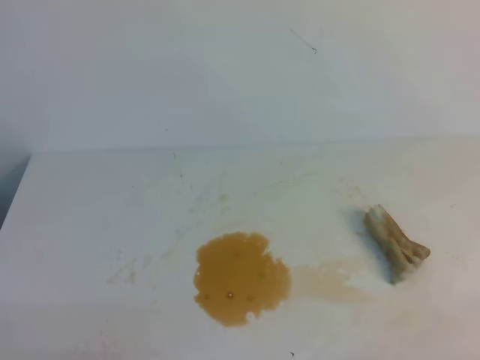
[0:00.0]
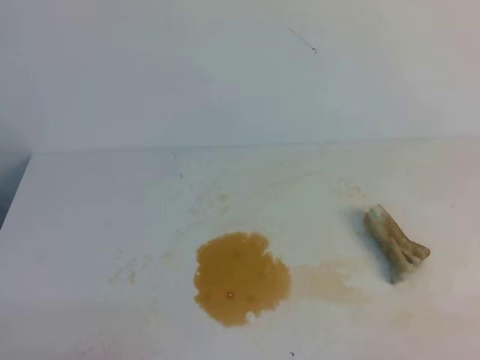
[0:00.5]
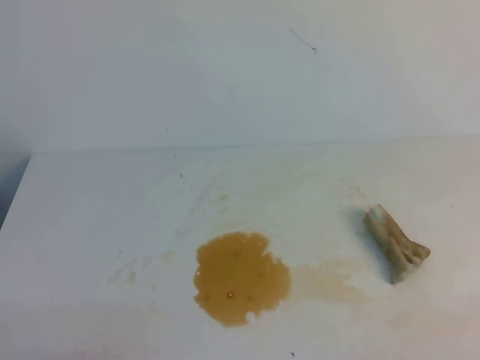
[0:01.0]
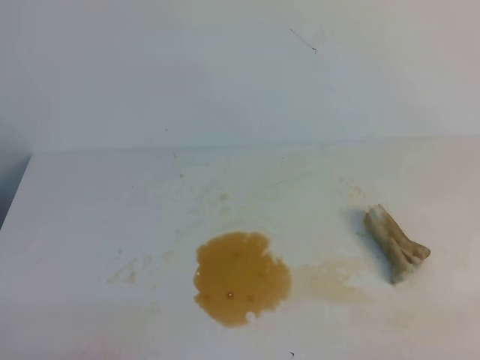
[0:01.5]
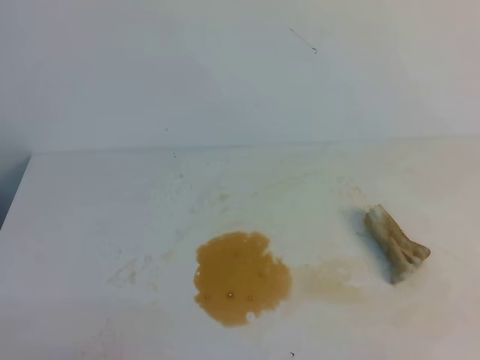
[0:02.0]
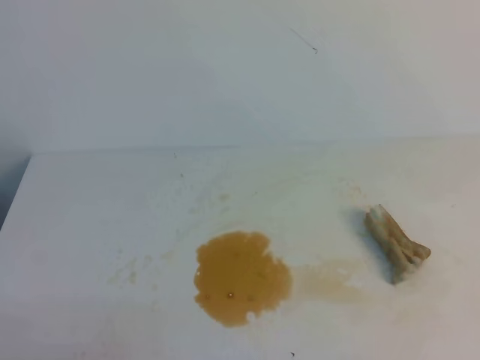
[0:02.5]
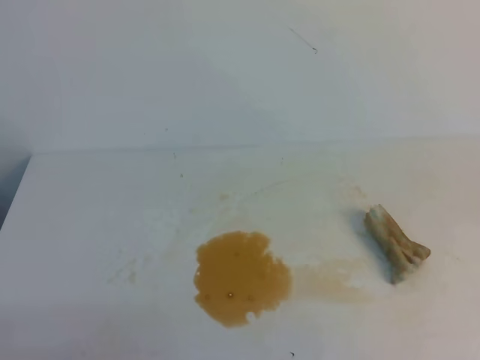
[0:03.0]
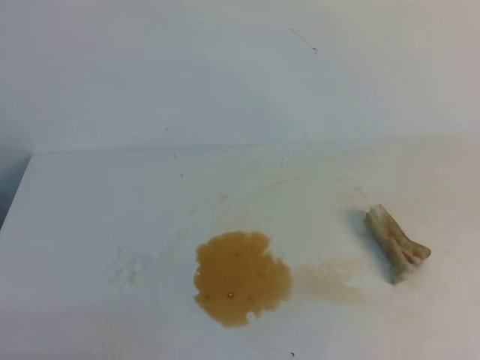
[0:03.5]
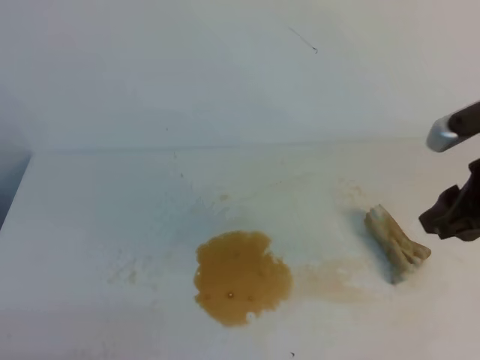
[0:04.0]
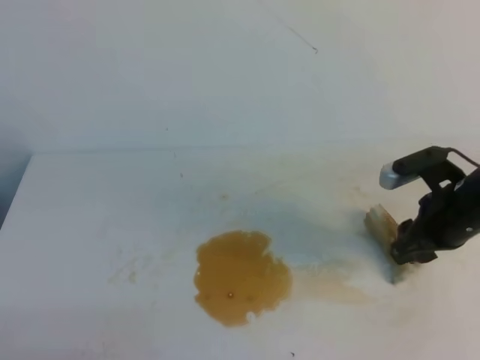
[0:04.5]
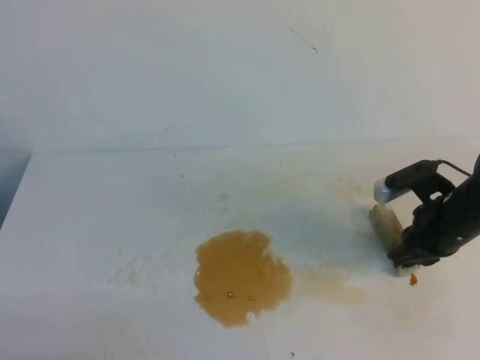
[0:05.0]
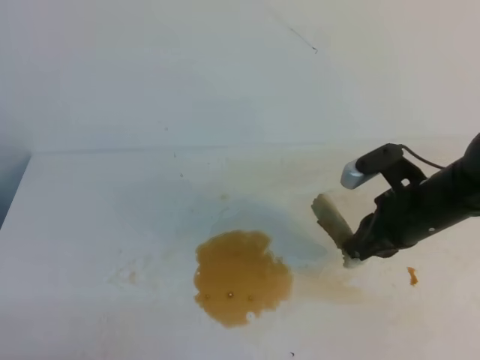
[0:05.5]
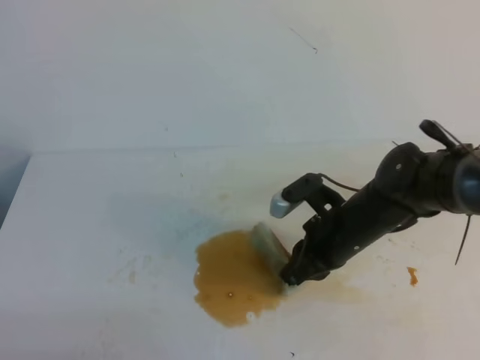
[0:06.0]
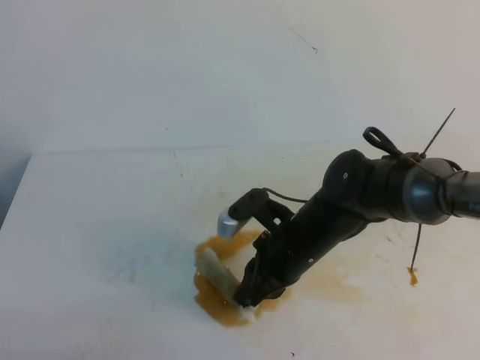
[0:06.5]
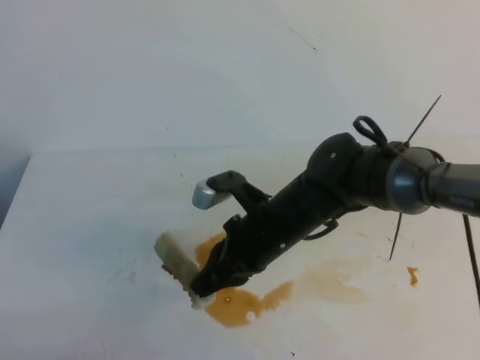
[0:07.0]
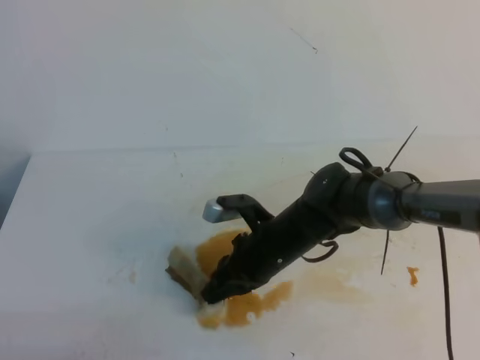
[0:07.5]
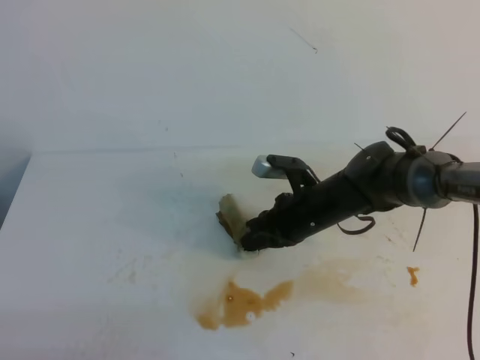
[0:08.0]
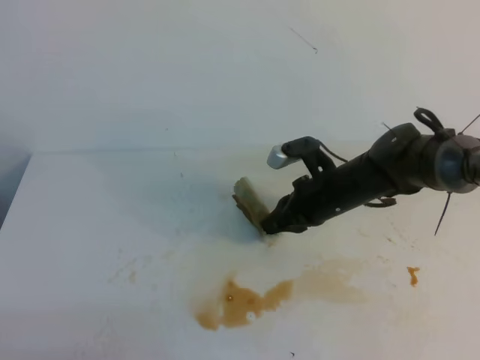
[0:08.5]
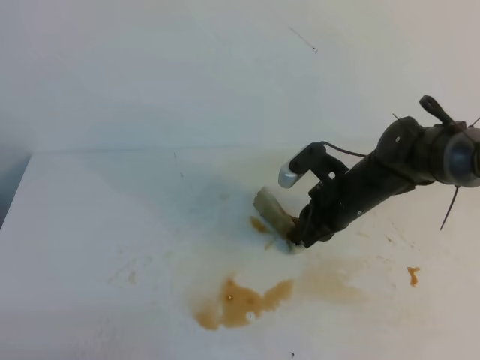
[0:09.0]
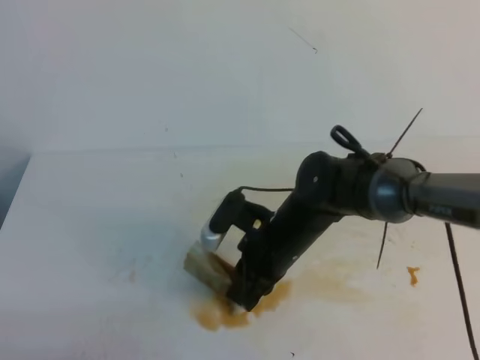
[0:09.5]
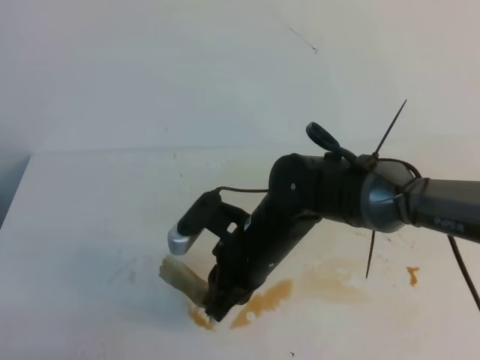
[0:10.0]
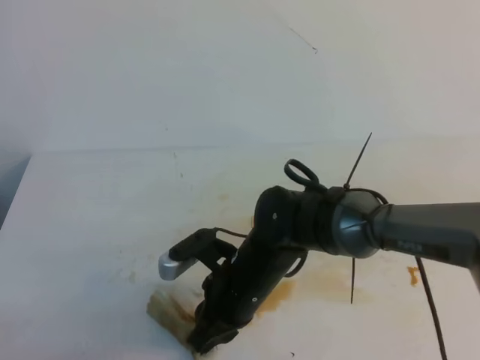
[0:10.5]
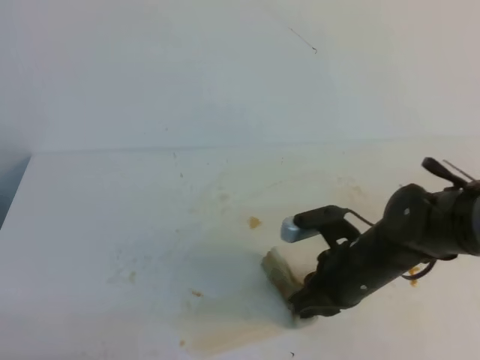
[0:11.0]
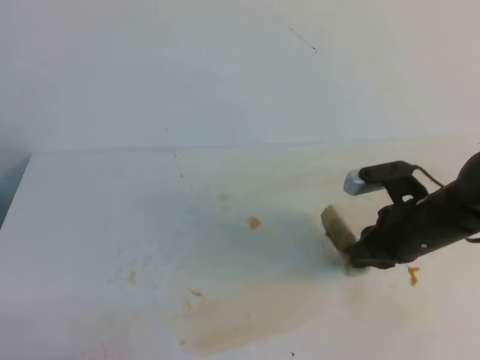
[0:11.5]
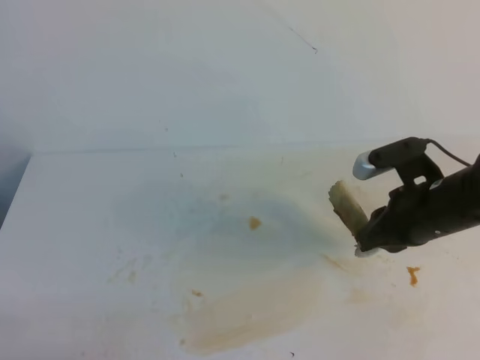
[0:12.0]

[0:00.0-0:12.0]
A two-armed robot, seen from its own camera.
0:02.0 to 0:04.0: The right gripper moves forward, some 20 cm, and opens up.
0:04.0 to 0:06.0: The right gripper goes approximately 20 cm to the left, downward and forward, and closes its fingers.
0:06.0 to 0:08.0: The right gripper ends up about 5 cm from where it was.
0:08.0 to 0:10.0: The right gripper is displaced backward, to the left and upward by roughly 15 cm.
0:10.0 to 0:12.0: The right gripper heads to the right, covering some 20 cm.

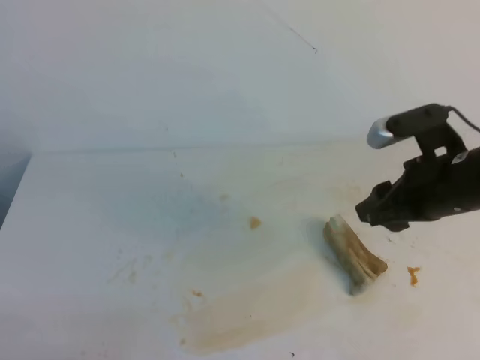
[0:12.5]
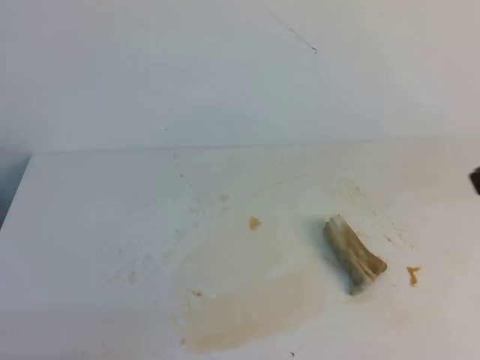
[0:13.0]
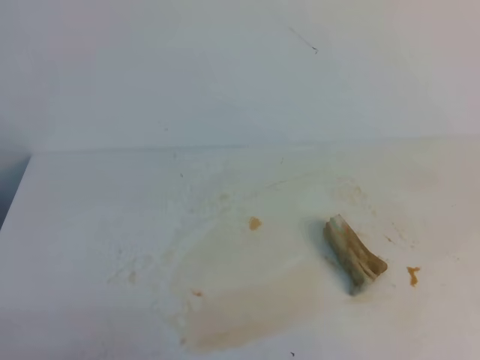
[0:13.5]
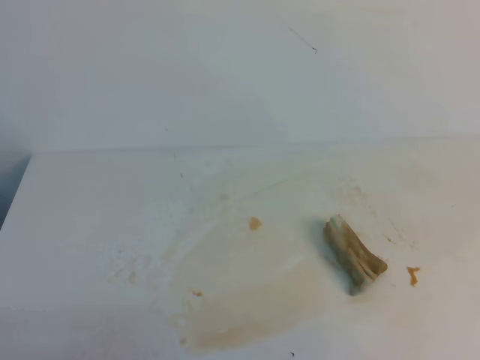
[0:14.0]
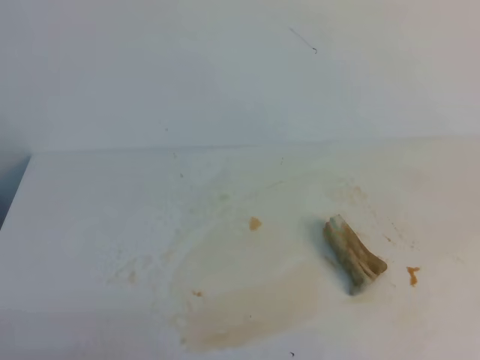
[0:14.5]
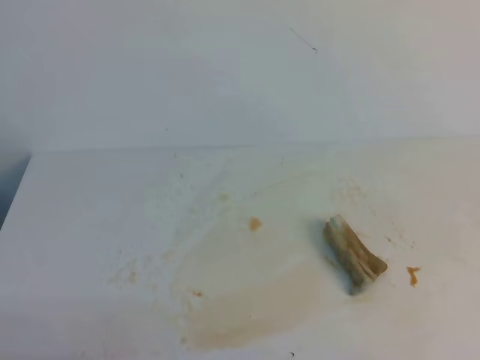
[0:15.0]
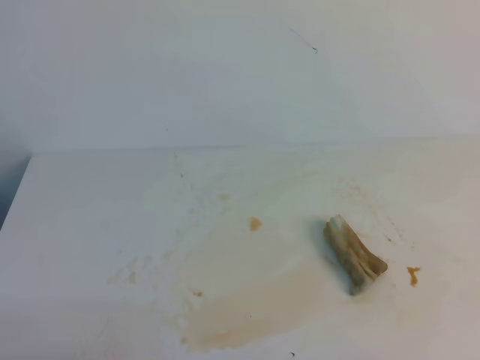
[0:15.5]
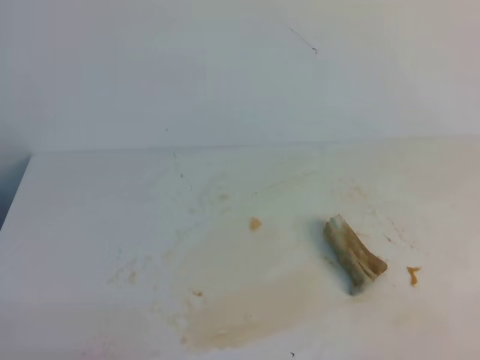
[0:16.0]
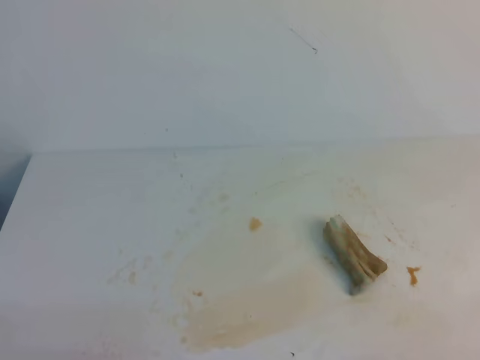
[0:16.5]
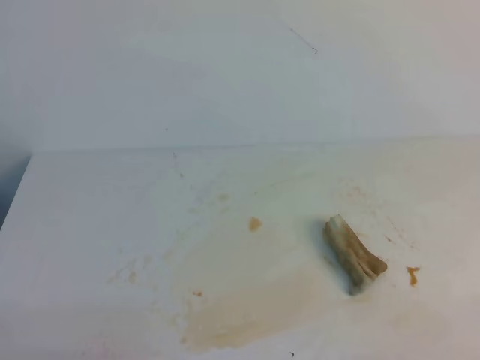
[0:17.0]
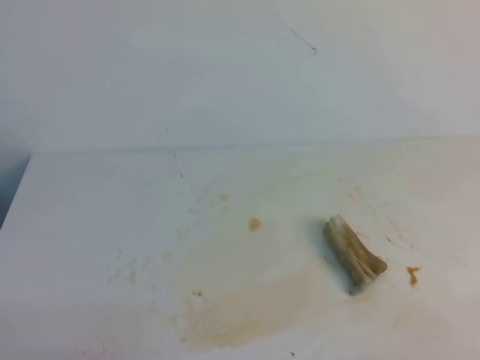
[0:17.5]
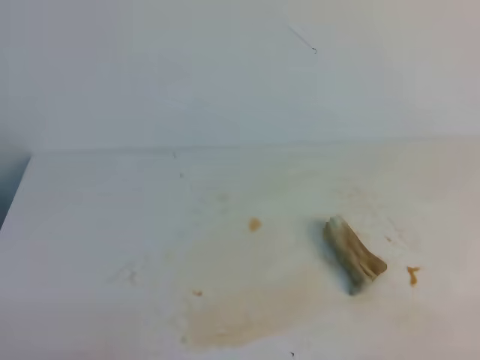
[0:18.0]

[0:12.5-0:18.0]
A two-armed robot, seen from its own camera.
0:12.5 to 0:14.5: The right gripper is displaced backward, to the right and upward by roughly 25 cm, and closes.

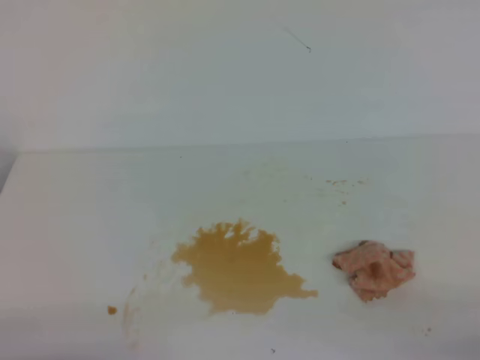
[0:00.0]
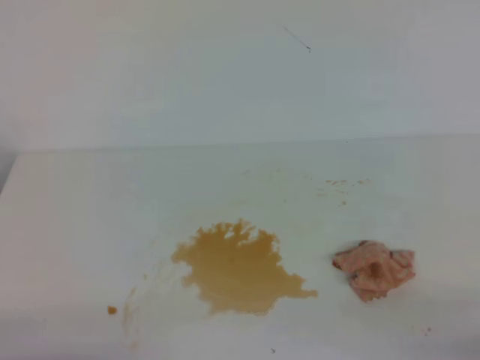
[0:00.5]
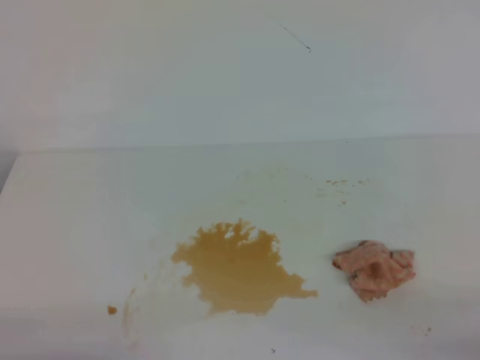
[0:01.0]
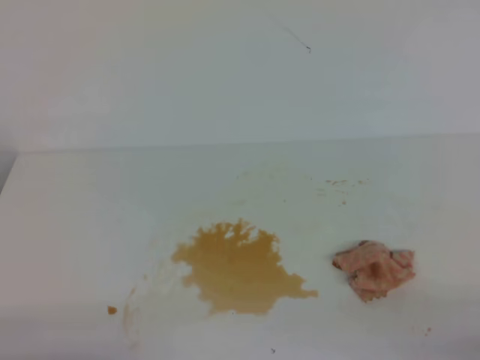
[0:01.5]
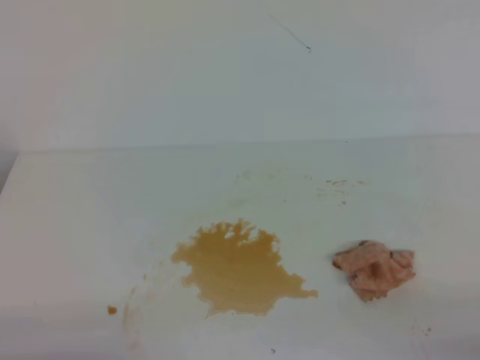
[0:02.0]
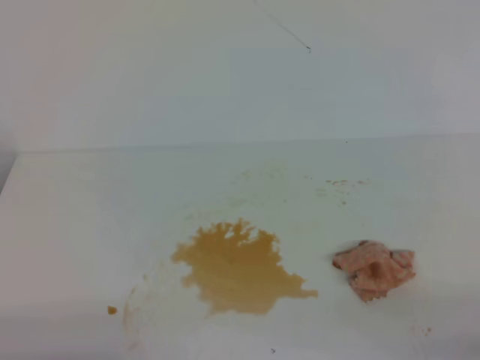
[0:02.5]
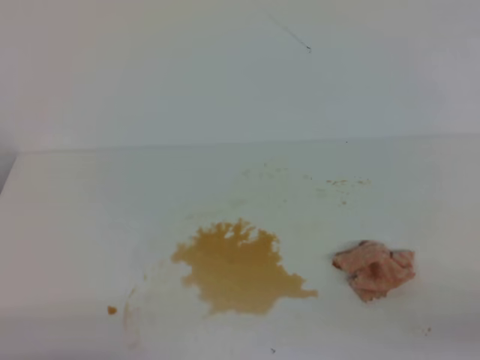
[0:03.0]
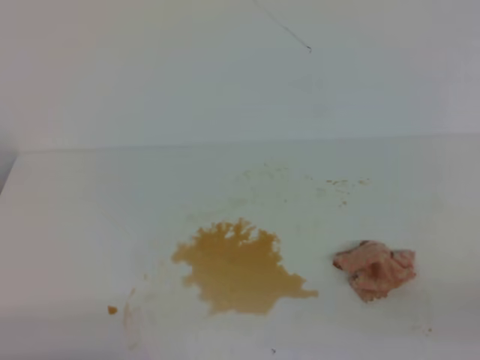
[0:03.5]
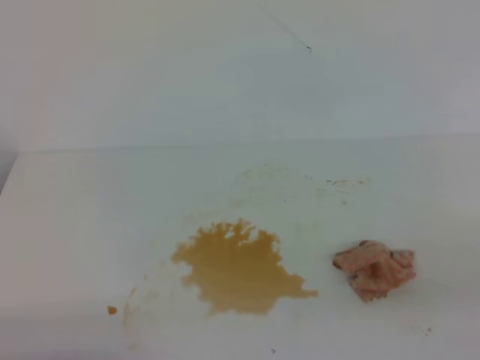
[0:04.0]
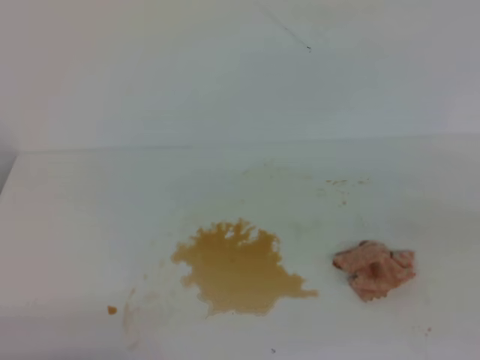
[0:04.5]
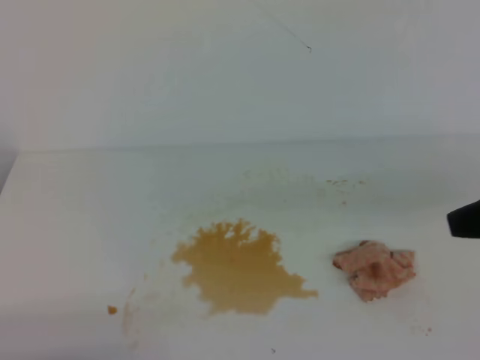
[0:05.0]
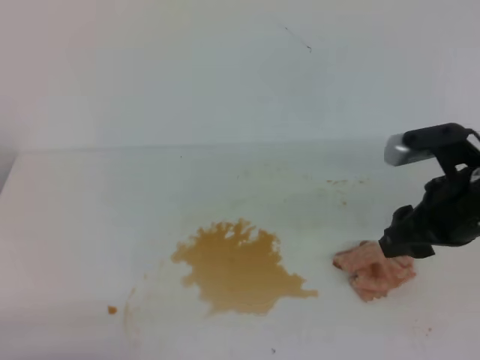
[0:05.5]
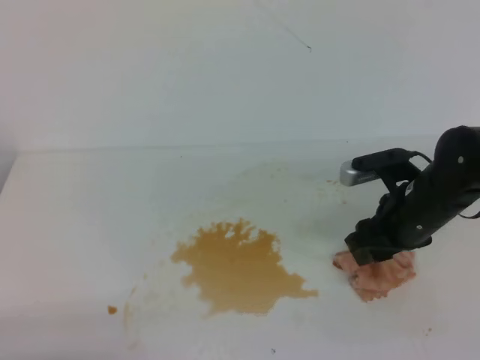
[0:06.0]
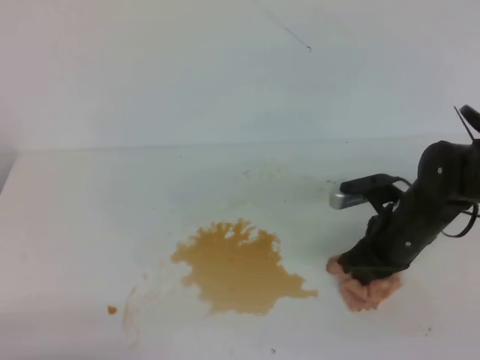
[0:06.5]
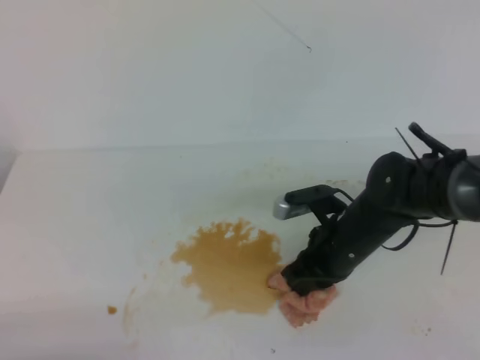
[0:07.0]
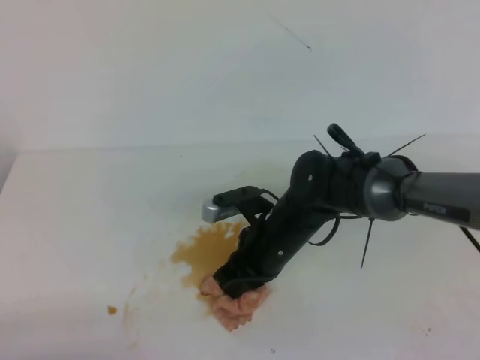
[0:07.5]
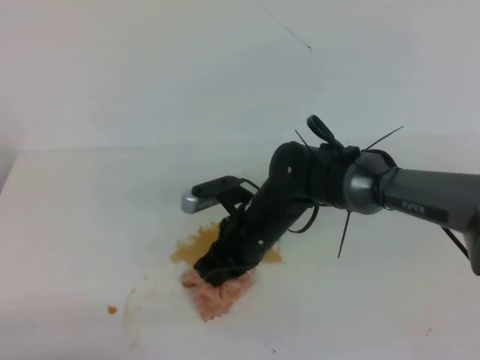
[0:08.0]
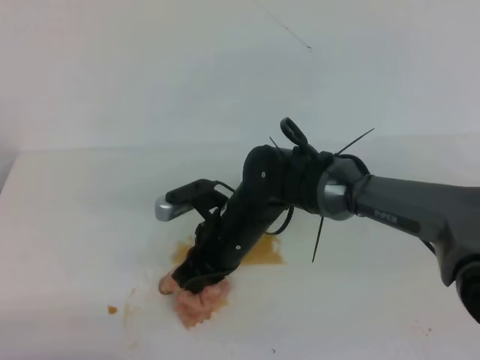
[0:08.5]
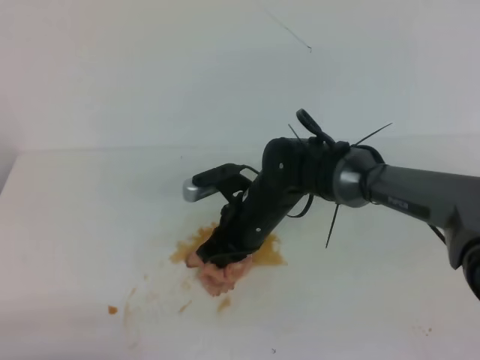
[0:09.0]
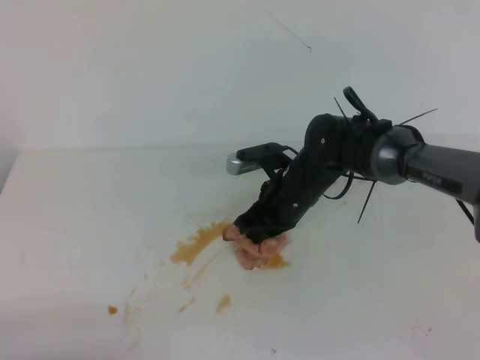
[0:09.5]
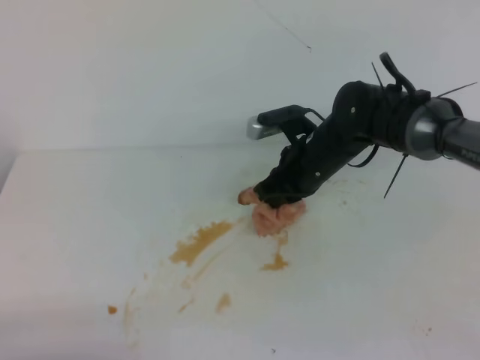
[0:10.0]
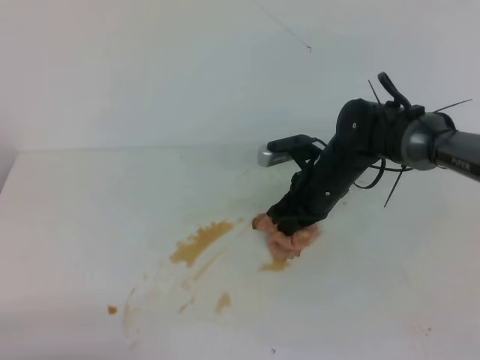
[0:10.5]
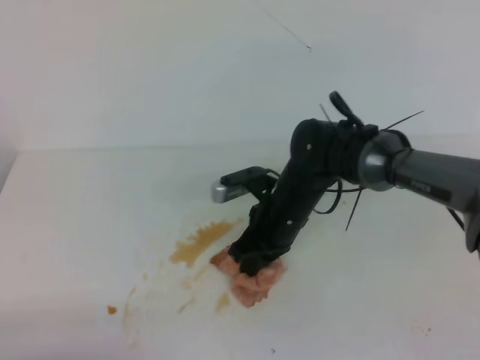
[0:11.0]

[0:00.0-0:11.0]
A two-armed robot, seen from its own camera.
0:00.0 to 0:02.0: Both grippers stay about where they are.
0:03.5 to 0:05.5: The right gripper is displaced forward and to the left by approximately 25 cm, and opens its fingers.
0:05.5 to 0:07.5: The right gripper heads to the left and downward, covering some 20 cm, and closes up.
